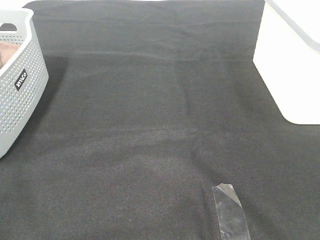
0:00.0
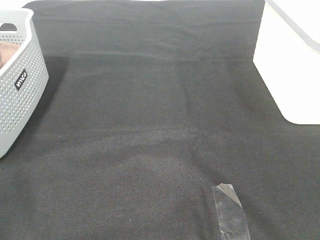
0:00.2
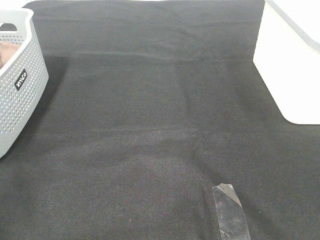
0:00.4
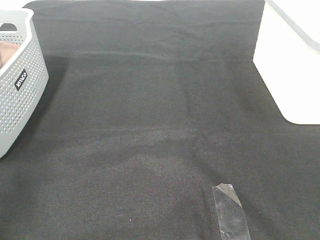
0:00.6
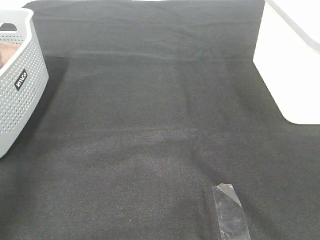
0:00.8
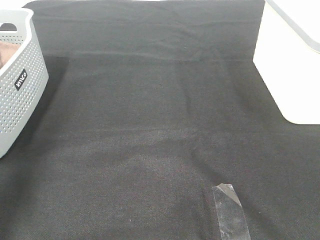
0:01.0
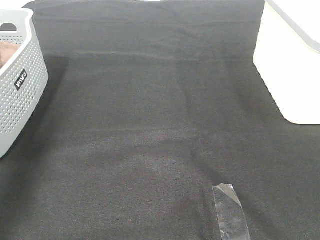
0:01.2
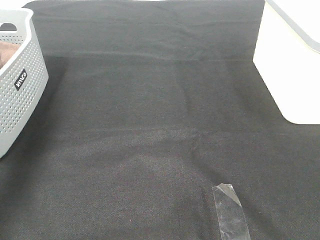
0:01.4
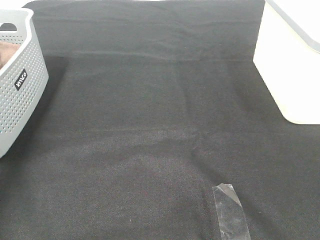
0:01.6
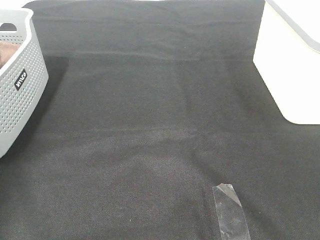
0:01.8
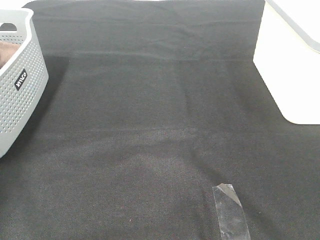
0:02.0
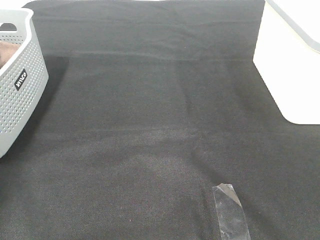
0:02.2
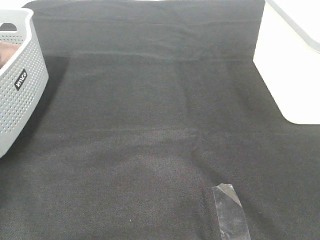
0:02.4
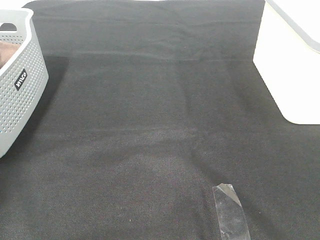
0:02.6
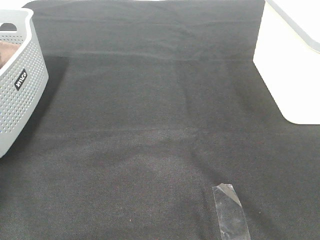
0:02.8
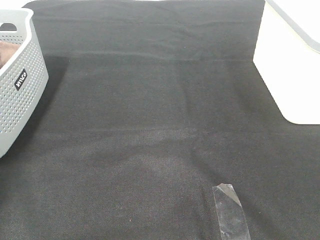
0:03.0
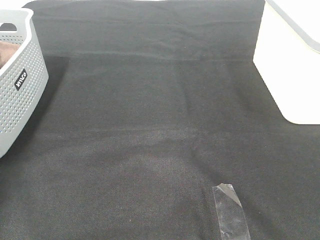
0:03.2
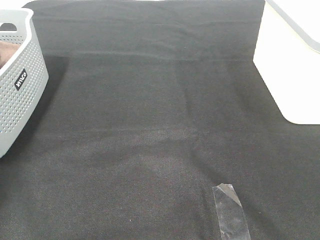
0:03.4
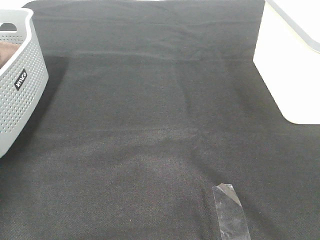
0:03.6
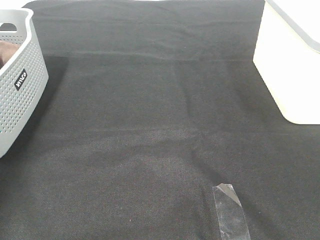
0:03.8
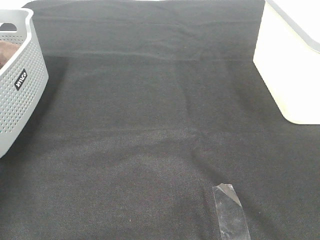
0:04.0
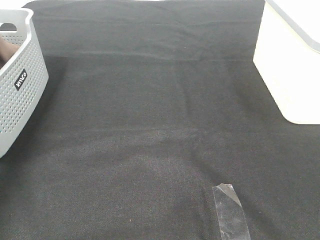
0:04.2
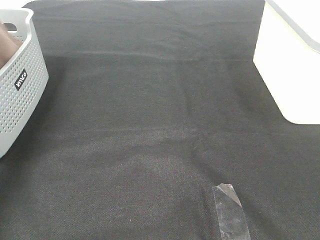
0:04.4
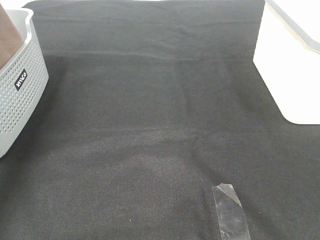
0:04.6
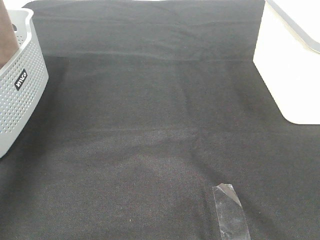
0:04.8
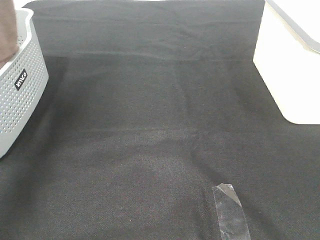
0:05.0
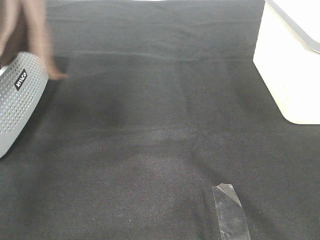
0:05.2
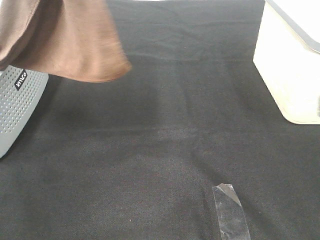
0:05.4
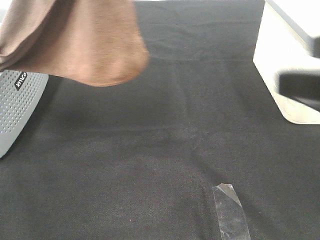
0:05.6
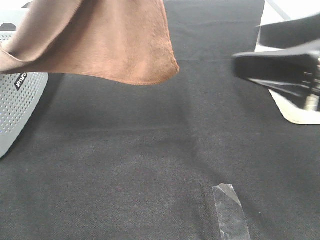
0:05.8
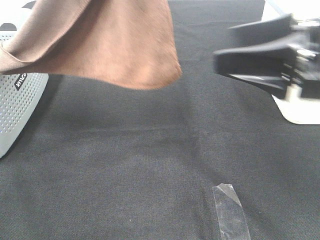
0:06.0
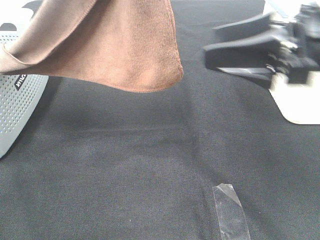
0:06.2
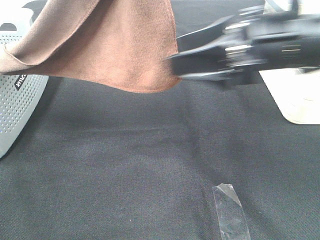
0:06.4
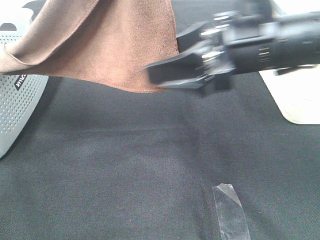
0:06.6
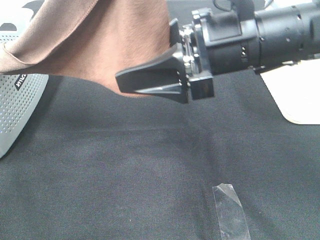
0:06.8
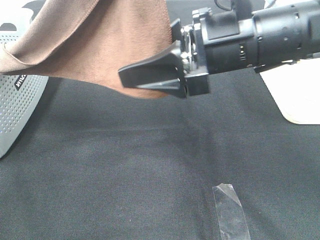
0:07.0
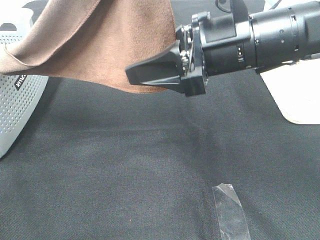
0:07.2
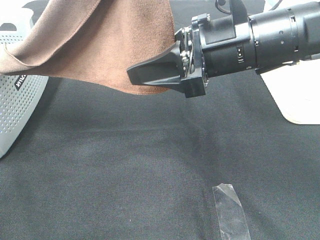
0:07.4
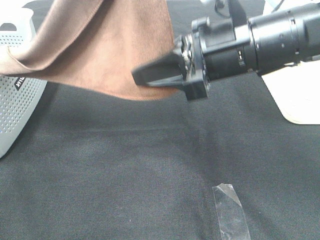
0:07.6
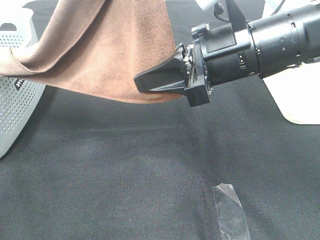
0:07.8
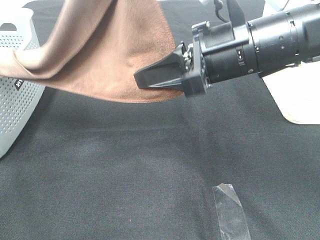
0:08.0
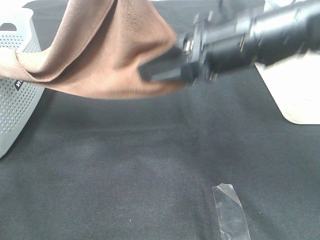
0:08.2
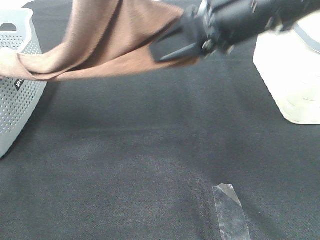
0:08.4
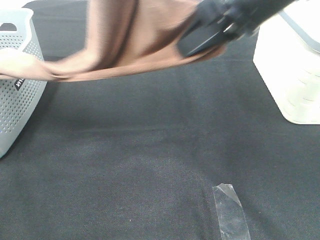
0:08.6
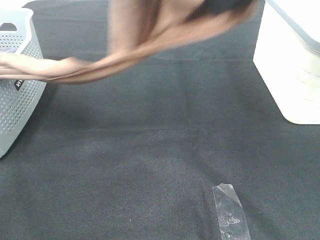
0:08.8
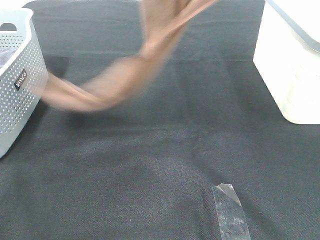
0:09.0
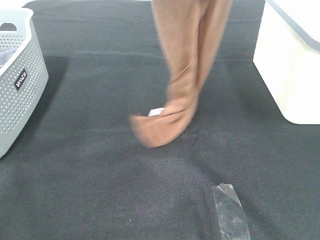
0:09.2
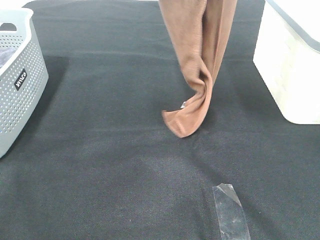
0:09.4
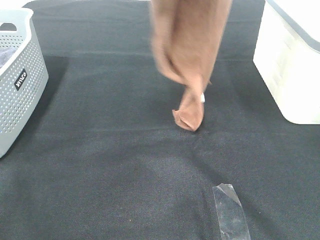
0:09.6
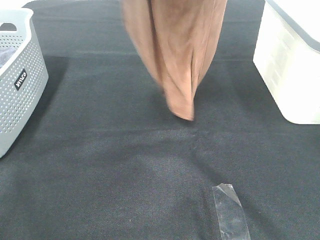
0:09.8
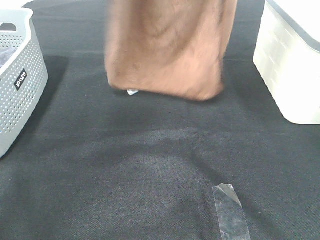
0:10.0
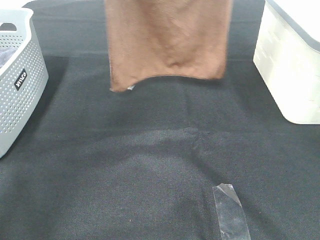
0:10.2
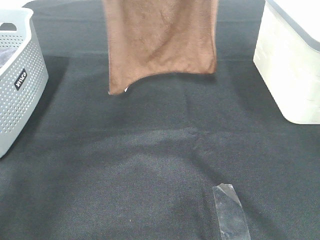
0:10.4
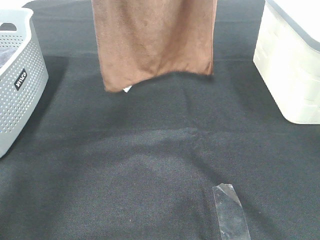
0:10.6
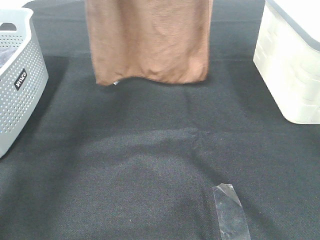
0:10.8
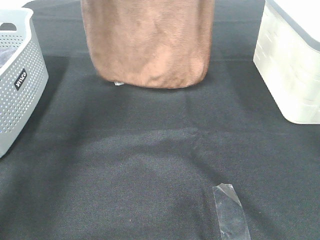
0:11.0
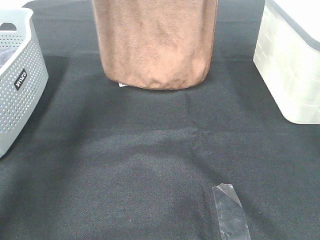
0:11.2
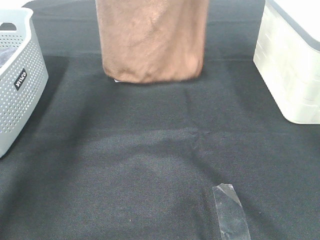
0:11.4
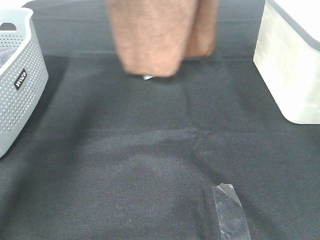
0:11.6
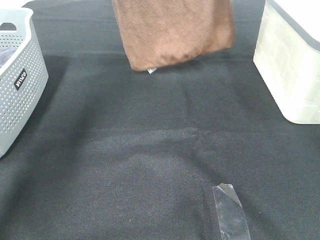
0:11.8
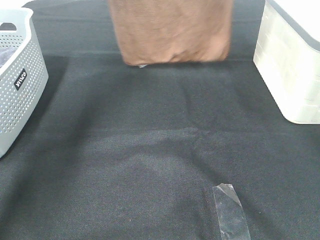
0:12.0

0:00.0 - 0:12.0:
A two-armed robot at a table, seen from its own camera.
Task of the whole recording: Remove the towel and place it.
Step, 0:04.6 - 0:07.6: Right hand: grab a corner of the brown towel and straighten it.
0:00.0 - 0:01.6: The left gripper heads forward, covering roughly 40 cm.
0:03.0 - 0:04.4: The left gripper goes roughly 25 cm upward.
0:04.4 - 0:06.0: The right gripper travels forward by some 20 cm. Meanwhile the left gripper goes some 25 cm to the right.
0:06.0 - 0:07.6: The right gripper heads to the left, covering roughly 10 cm, and closes.
0:07.6 - 0:09.0: The right gripper travels upward by some 20 cm, while the left gripper shifts approximately 5 cm forward.
0:09.0 - 0:10.4: The right gripper heads forward and upward, covering roughly 10 cm; the left gripper is displaced forward and to the left by about 10 cm.
0:10.4 - 0:12.0: Both grippers move forward, approximately 10 cm.

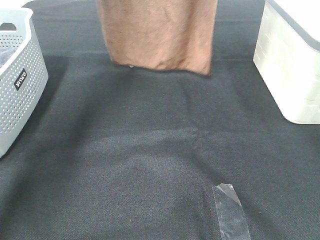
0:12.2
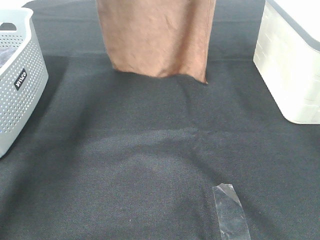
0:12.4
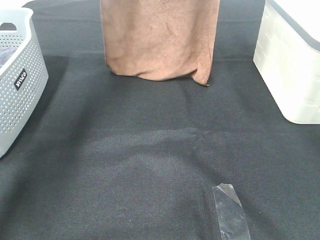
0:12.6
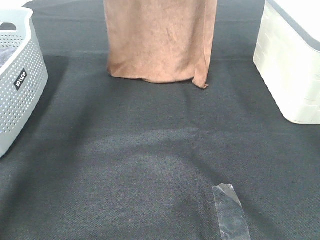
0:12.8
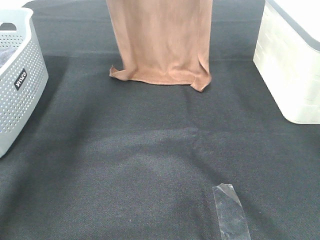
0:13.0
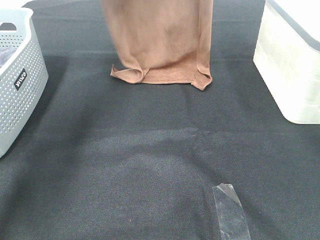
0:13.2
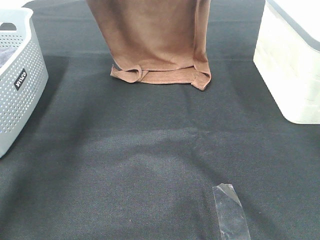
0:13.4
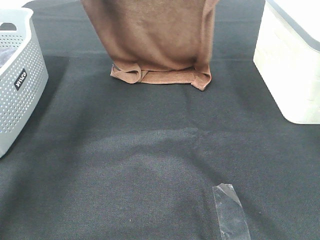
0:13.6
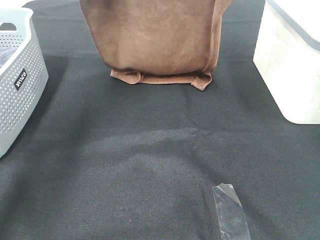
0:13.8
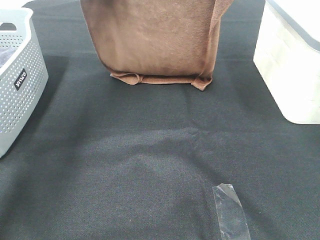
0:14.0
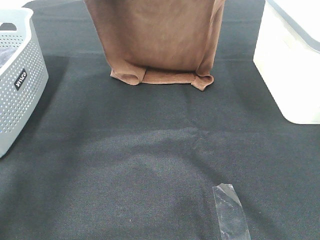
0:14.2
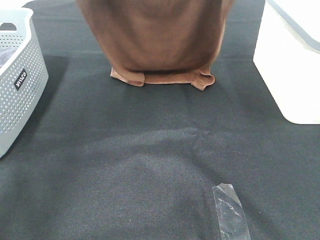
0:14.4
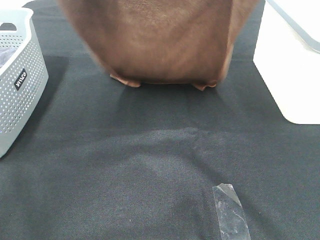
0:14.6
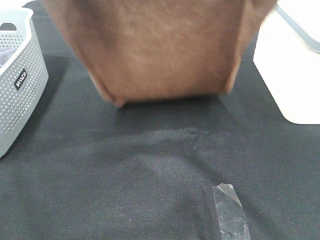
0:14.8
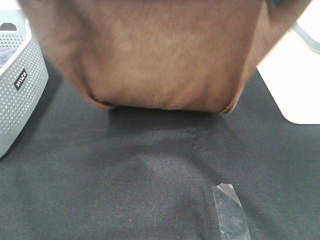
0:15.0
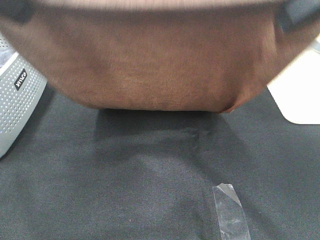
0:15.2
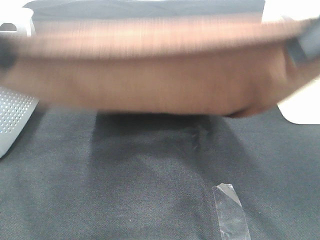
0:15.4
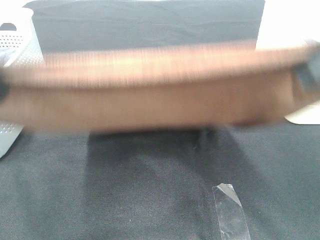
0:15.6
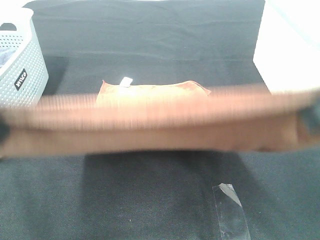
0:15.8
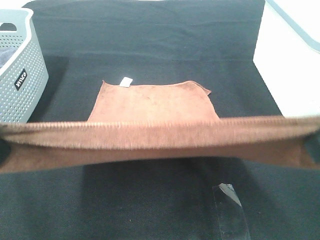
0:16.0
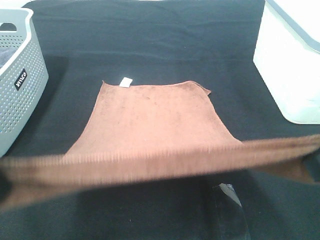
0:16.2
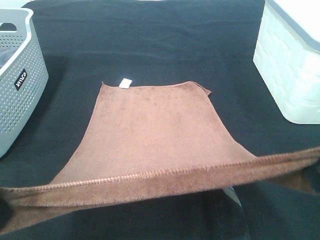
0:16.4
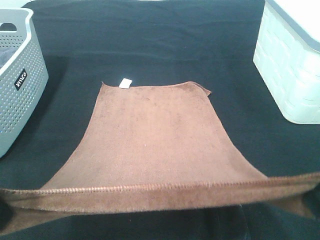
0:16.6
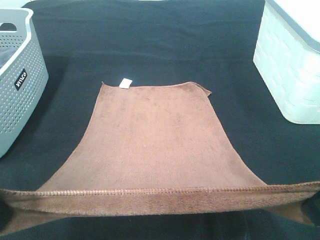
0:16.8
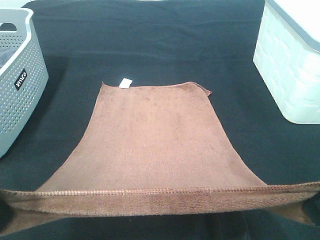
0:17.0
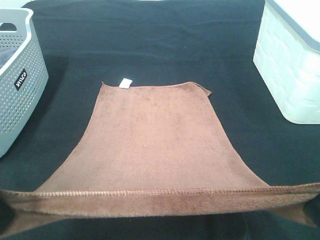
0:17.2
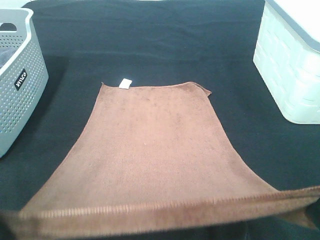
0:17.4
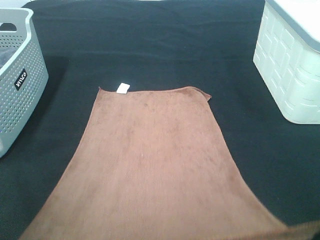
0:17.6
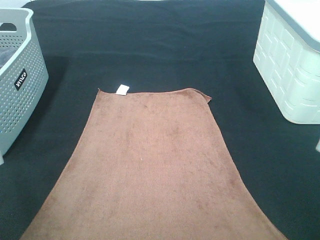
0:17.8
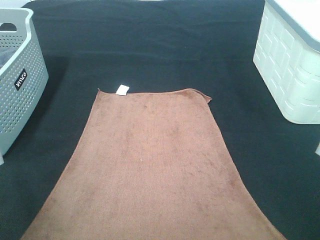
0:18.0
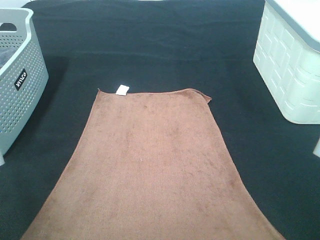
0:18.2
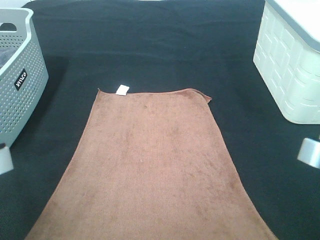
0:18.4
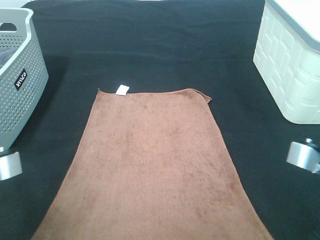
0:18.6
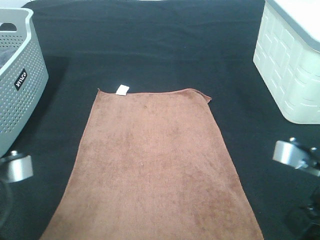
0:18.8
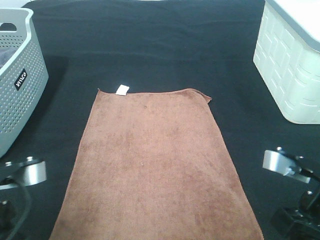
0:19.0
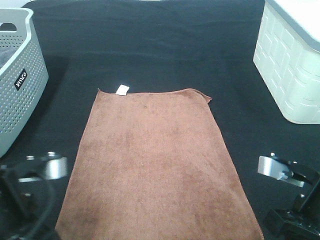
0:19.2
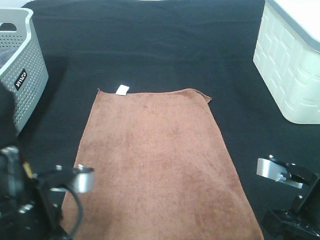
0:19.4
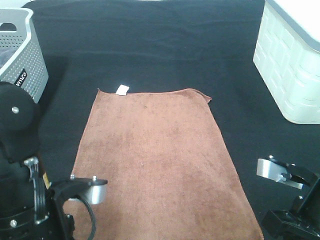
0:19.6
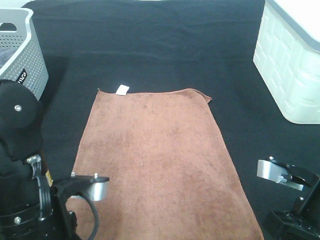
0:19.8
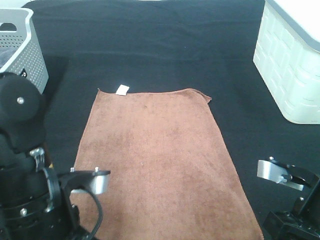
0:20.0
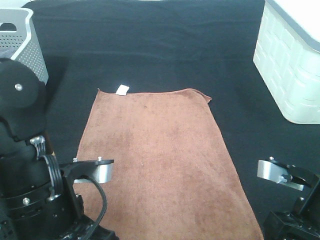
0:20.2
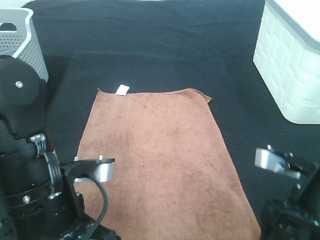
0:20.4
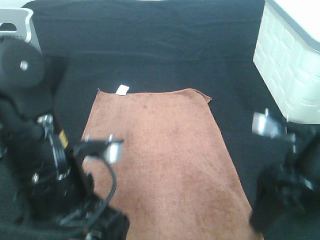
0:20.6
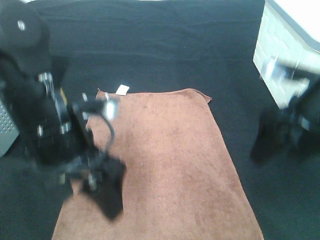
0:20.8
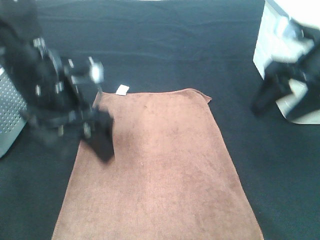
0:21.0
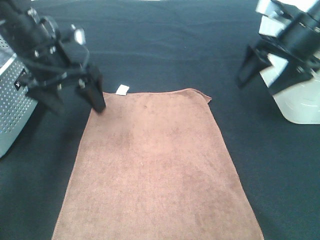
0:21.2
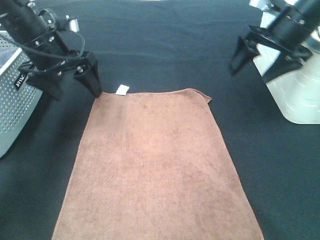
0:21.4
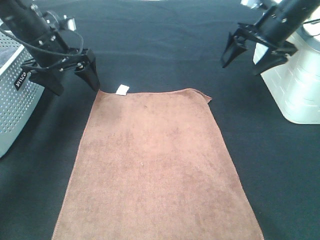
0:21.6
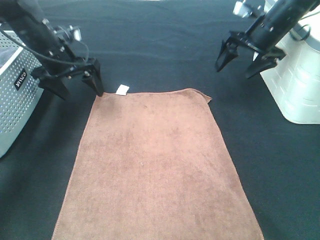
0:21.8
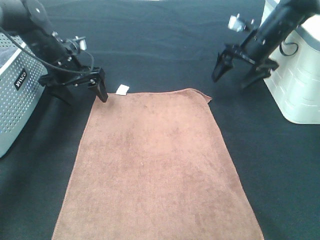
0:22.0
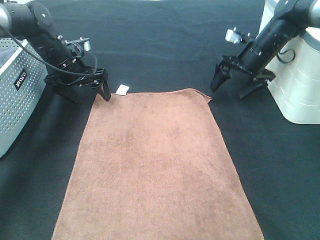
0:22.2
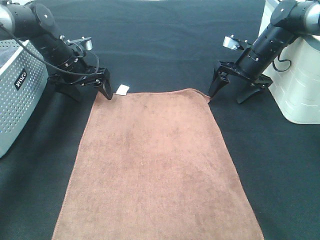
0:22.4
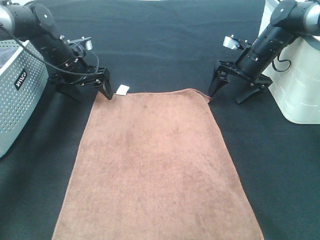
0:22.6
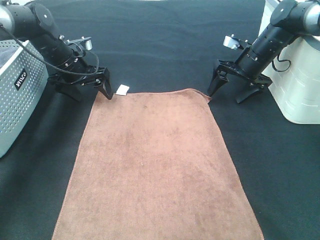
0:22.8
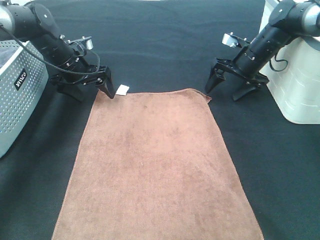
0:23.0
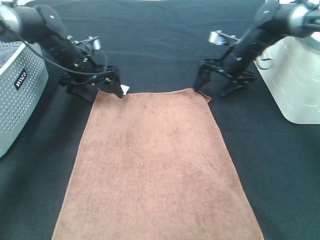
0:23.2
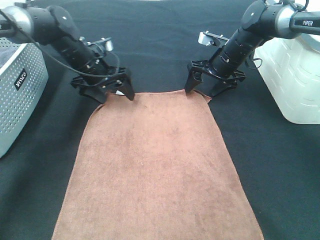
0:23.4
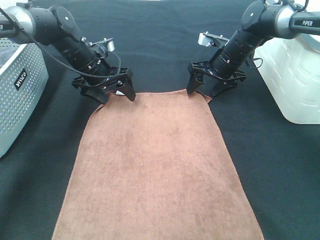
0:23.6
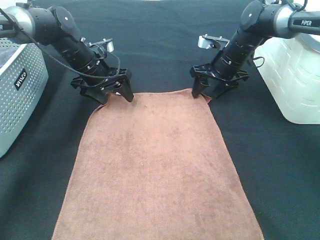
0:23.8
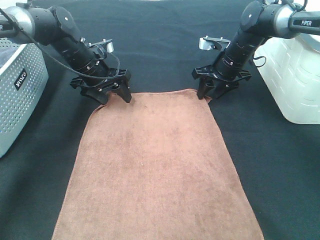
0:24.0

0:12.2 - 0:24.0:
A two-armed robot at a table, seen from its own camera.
Task of the whole recording: Remove the towel and place it.
Step, 0:12.2 - 0:15.6: Left hand: spread the brown towel flat on the table.
Step, 0:12.2 - 0:15.6: Right hand: spread the brown towel flat on the table.
0:12.2 - 0:13.6: Both grippers travel together downward, approximately 5 cm.
0:13.6 - 0:15.2: Both grippers travel together backward, about 25 cm.
0:15.2 - 0:16.6: The grippers both shift downward and backward by roughly 15 cm.
0:16.6 - 0:18.2: Both grippers travel together downward, roughly 5 cm.
0:18.2 - 0:19.6: The left gripper moves downward and to the right, roughly 10 cm; the right gripper is displaced downward and forward by about 10 cm.
0:19.6 - 0:21.0: The right gripper goes roughly 20 cm forward and upward, and opens its fingers. The left gripper heads forward, covering roughly 15 cm, and opens its fingers.
0:21.0 - 0:22.6: The two grippers go about 25 cm forward and downward.
0:22.6 - 0:24.0: The left gripper ends up some 5 cm from where it was. Meanwhile the right gripper travels to the left by some 5 cm, and closes.
